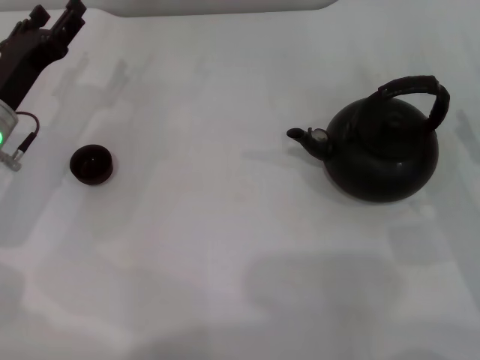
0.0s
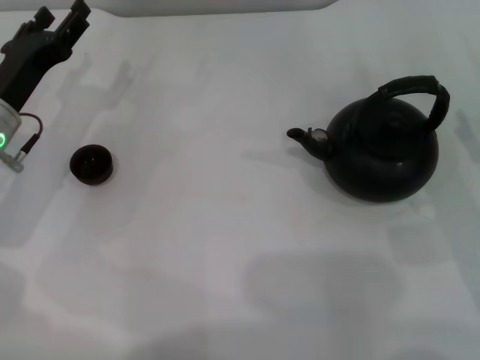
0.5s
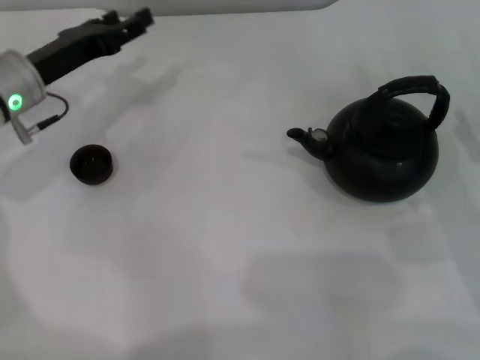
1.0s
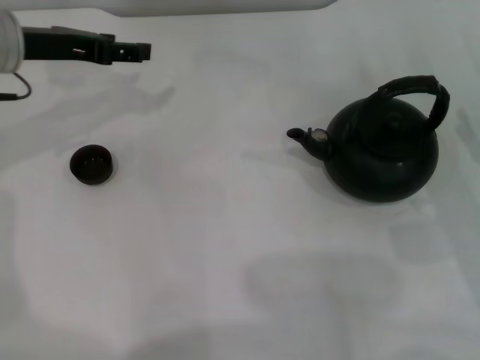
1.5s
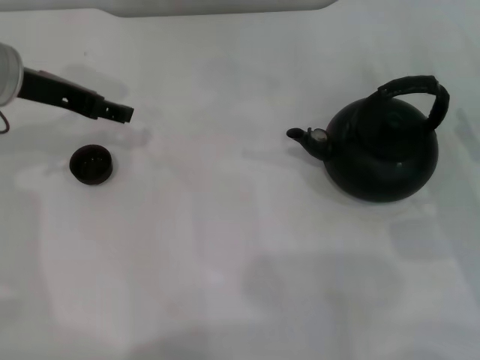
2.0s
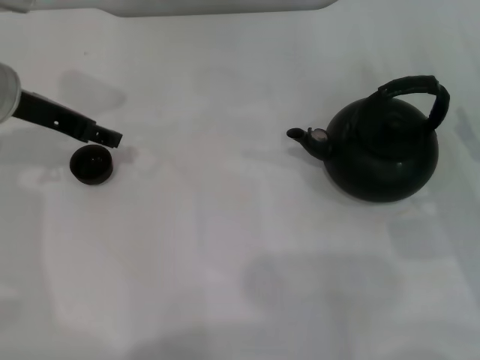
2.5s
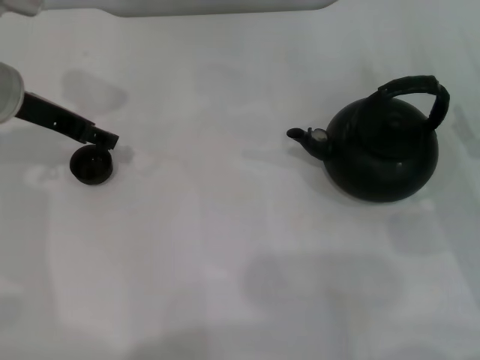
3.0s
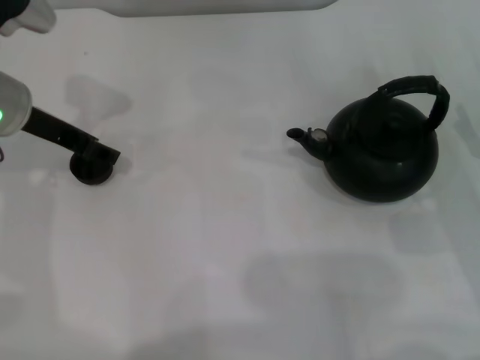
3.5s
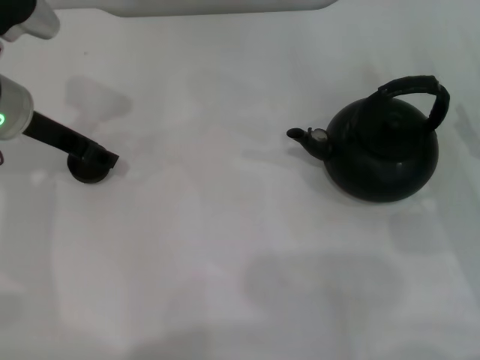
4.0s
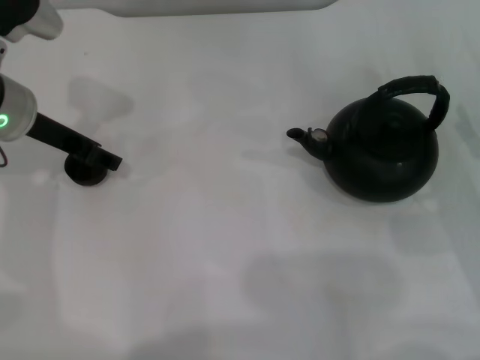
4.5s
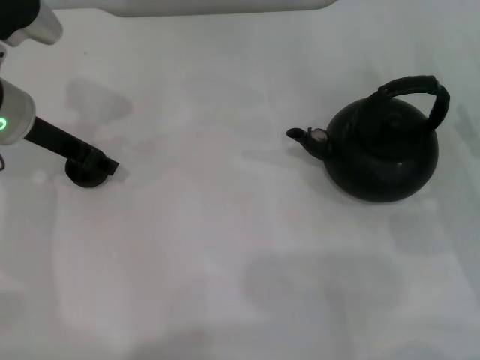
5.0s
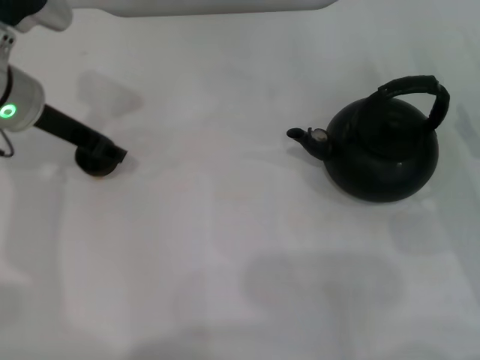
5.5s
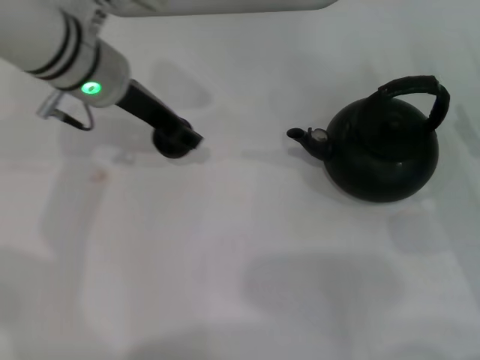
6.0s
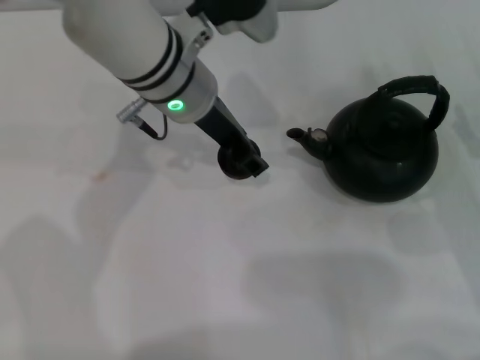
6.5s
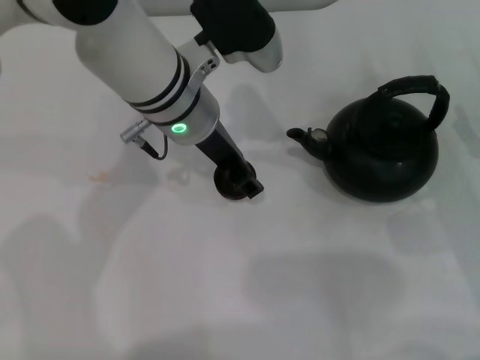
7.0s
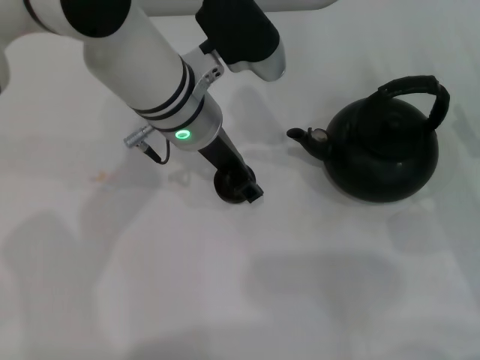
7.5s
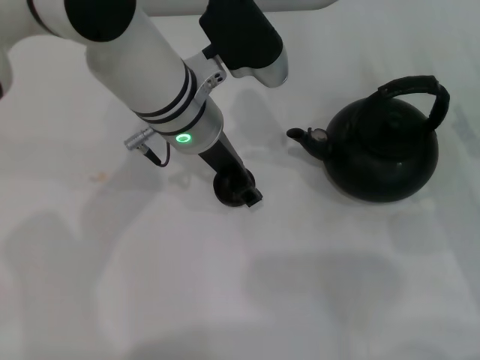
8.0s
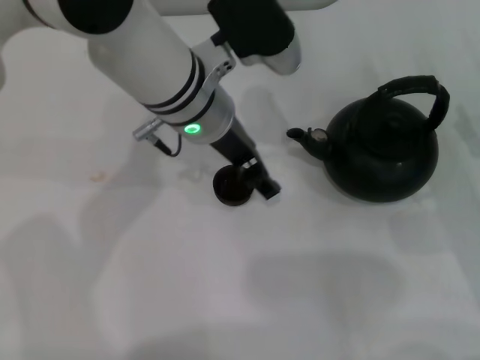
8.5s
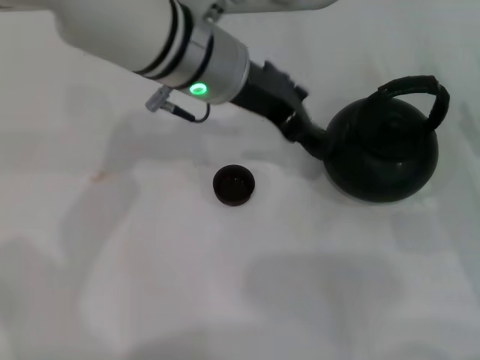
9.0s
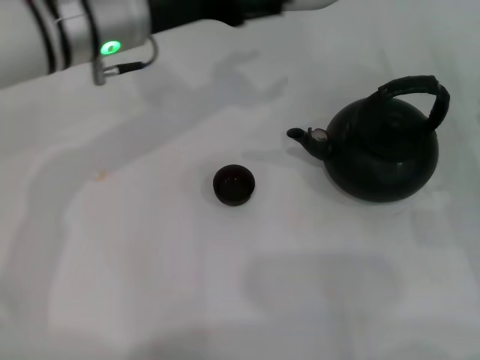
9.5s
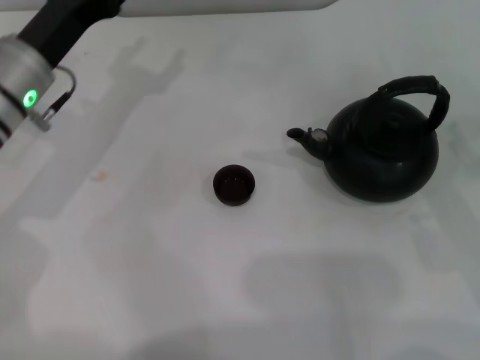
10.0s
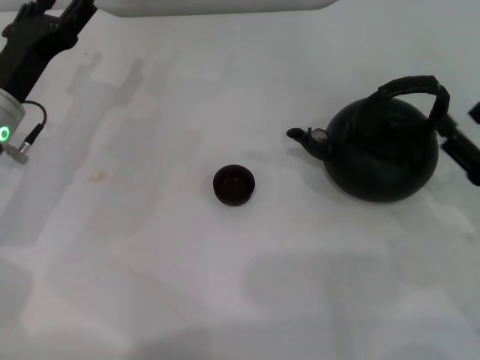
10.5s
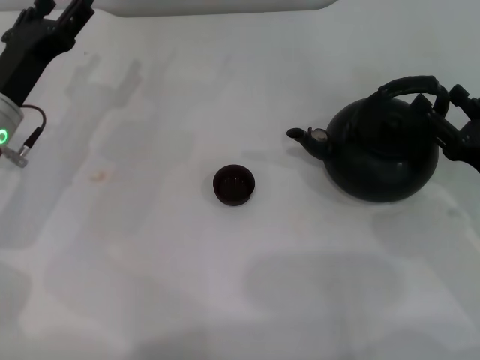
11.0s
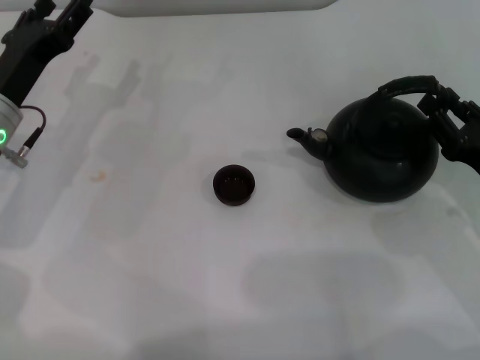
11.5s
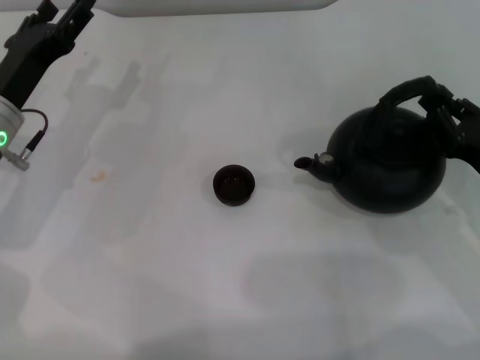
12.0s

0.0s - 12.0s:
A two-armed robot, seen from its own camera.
Task of the whole recording: Grasp the handle of the teapot with one hand and pour tea into the teacup.
Step, 0.0s - 5.0s: Pick up the teacup with the left gripper.
Step, 6.0s - 8.5s: Place the teacup in the center of view with the left gripper.
0.0s - 2.0s: The left gripper moves upward, approximately 10 cm.
2.0s - 4.0s: The grippers make only small movements.
4.0s - 6.0s: The left gripper travels to the right by roughly 10 cm, and closes its fingers.
6.0s - 8.0s: The left gripper goes approximately 5 cm to the right, and opens its fingers.
8.0s - 10.0s: The left gripper is displaced to the left by some 15 cm.
10.0s - 12.0s: The left gripper moves about 5 cm; the right gripper closes.

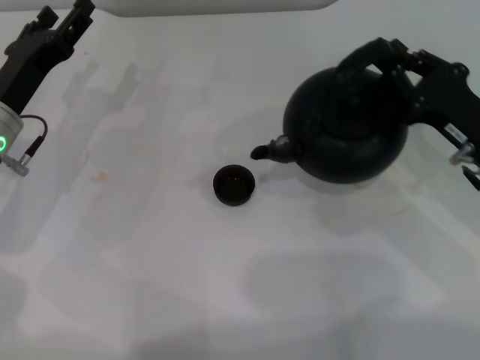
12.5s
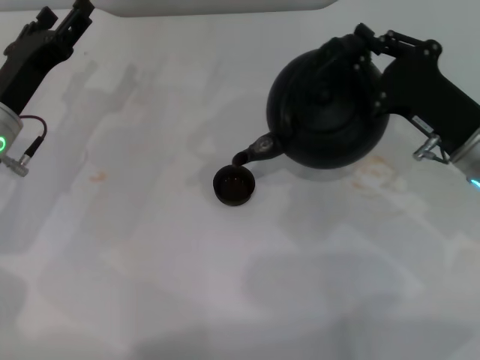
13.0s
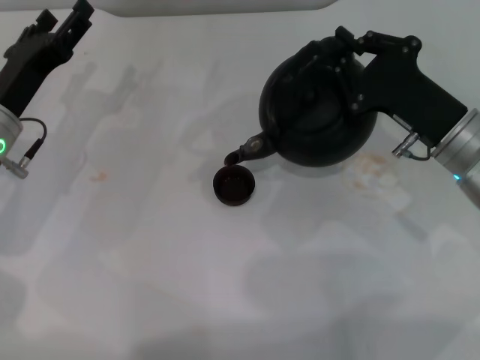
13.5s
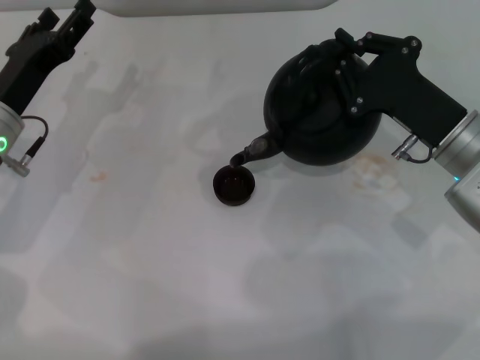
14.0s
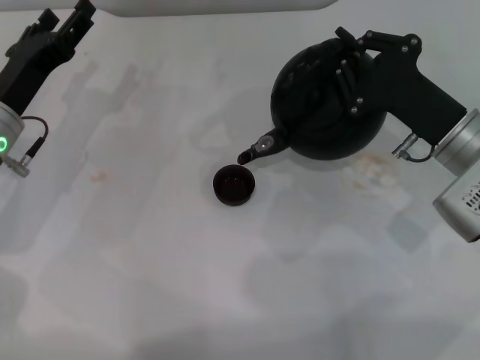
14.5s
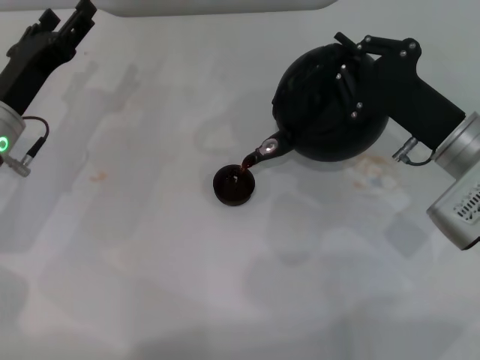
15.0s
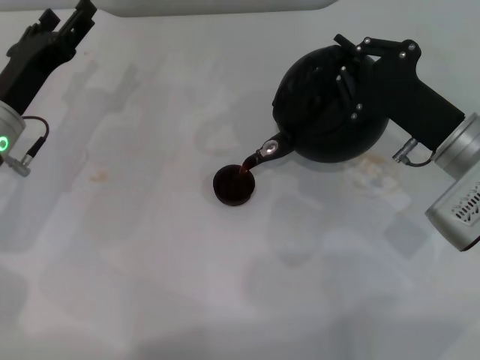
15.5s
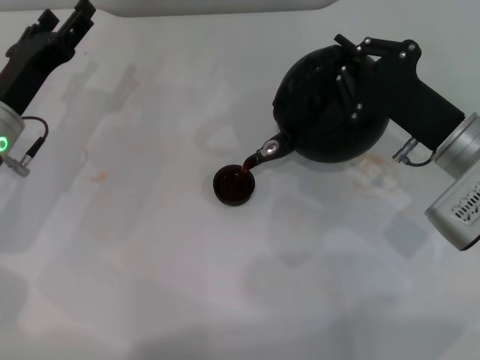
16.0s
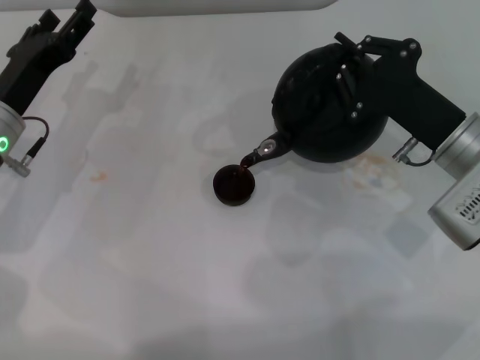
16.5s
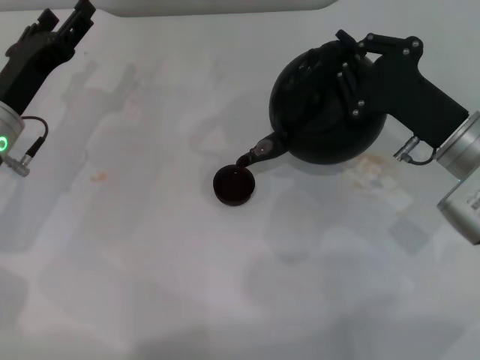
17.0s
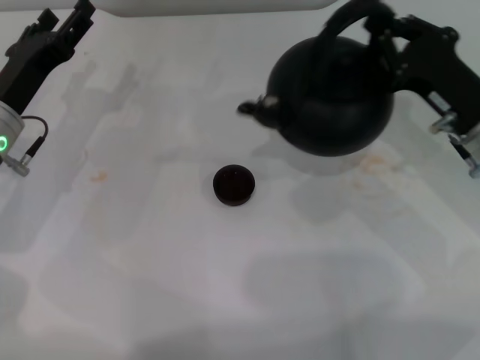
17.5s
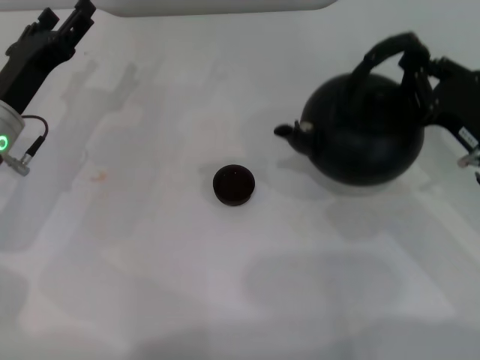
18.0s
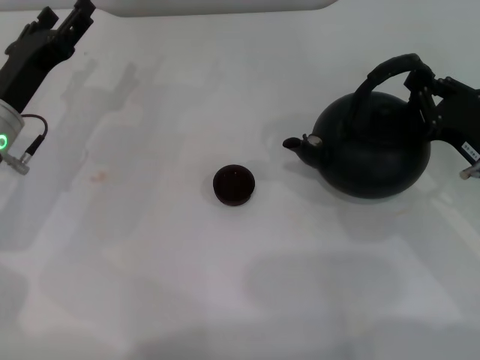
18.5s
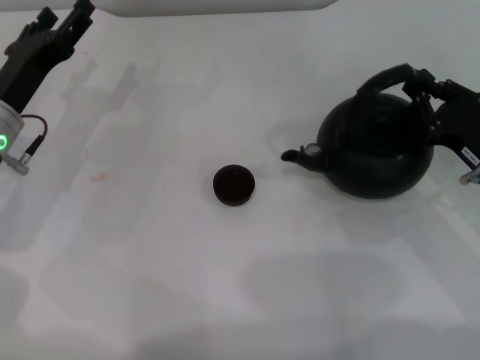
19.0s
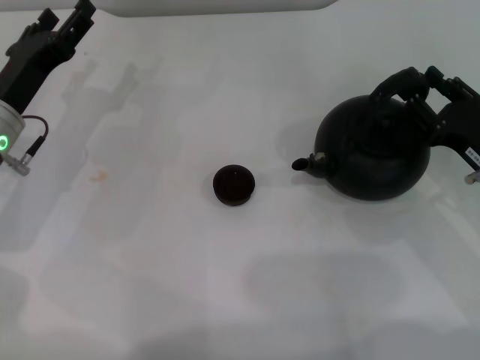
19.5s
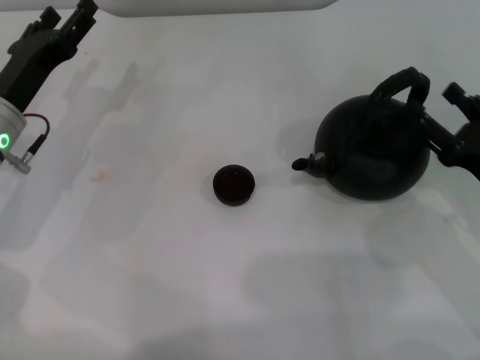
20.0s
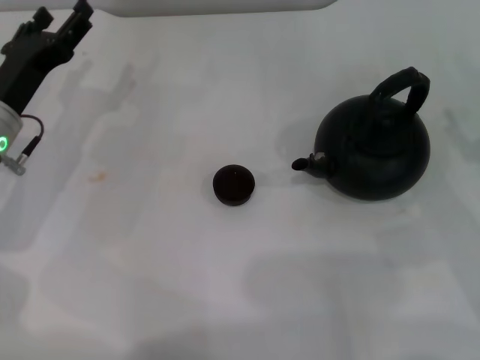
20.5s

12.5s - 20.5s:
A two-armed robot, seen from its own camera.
Task of the whole recording: Grasp the handle of the teapot with one hand and pour tea into the teacup.
Step, 12.5s - 17.0s: Pour tea into the teacup with the right gripper.
Step, 17.5s - 20.0s: Put down the teapot with the right gripper.
14.5s - 16.5s: The grippers move only a little.
16.5s - 18.5s: The right gripper goes roughly 5 cm to the right.
18.5s - 20.5s: The right gripper ends up approximately 5 cm from where it was, and opens up.
